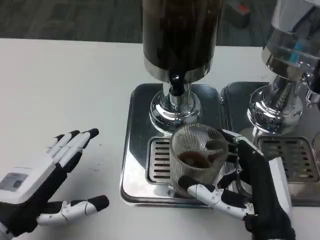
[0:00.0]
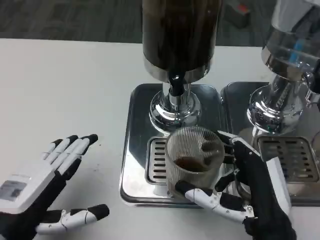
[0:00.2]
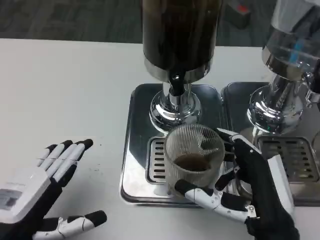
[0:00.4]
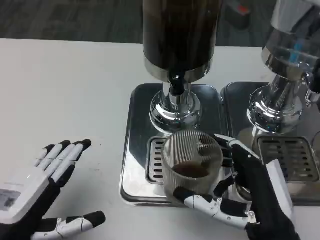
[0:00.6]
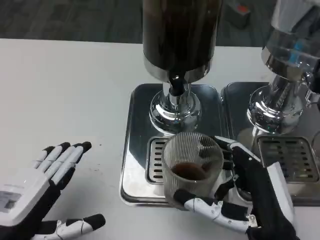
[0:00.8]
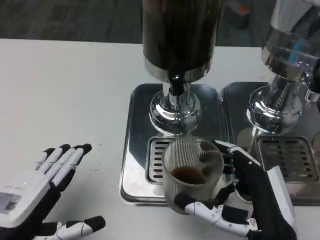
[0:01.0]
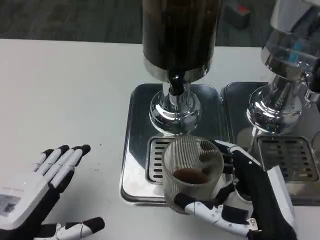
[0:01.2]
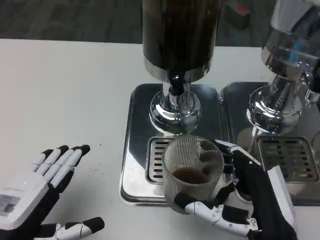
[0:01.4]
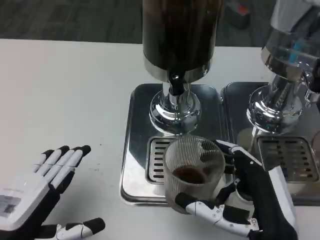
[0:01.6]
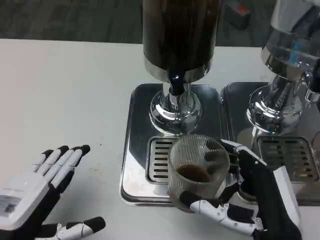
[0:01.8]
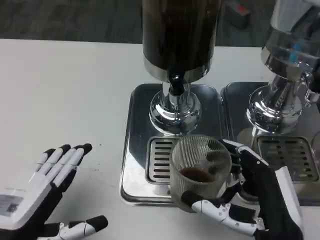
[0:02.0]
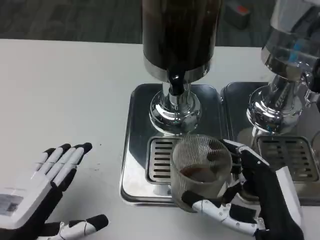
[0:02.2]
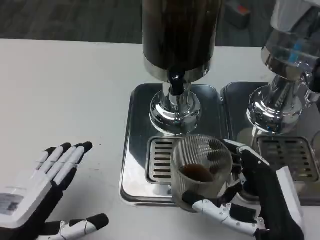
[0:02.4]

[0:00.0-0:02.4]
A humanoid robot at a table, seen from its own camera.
Task of the whole recording: Grasp the cup under the faucet to collect the drink, then remove the cup.
0:01.2 to 0:02.4: Both hands stay put.

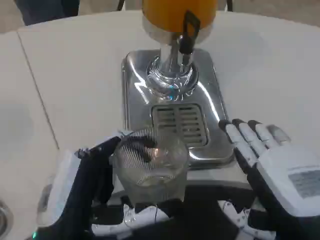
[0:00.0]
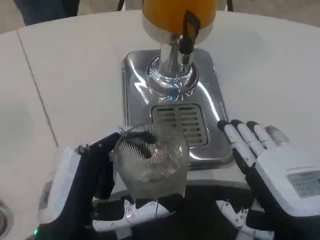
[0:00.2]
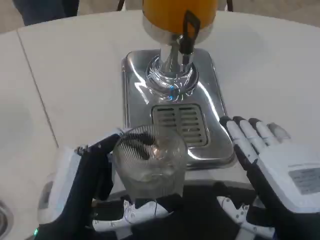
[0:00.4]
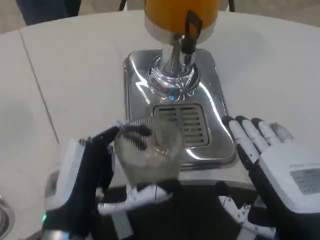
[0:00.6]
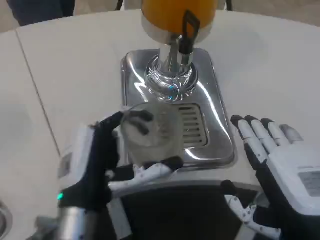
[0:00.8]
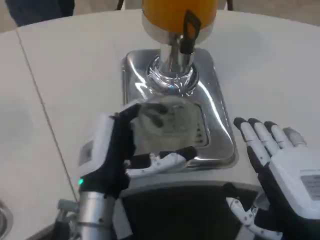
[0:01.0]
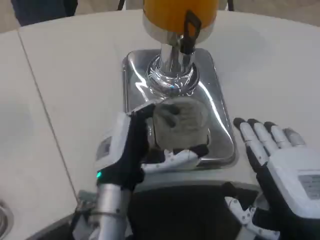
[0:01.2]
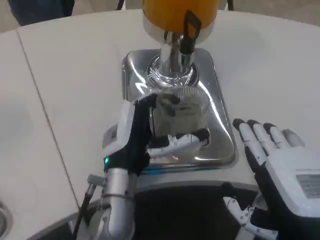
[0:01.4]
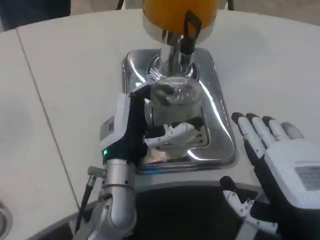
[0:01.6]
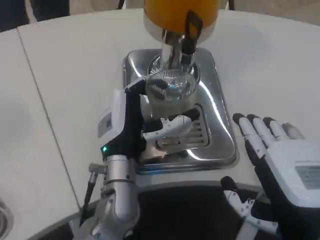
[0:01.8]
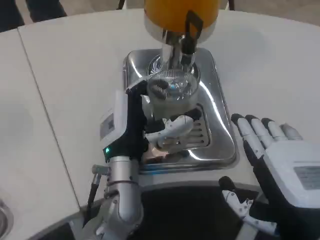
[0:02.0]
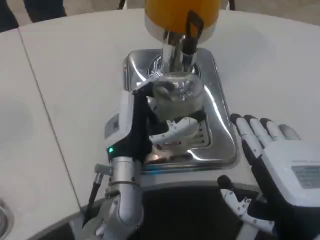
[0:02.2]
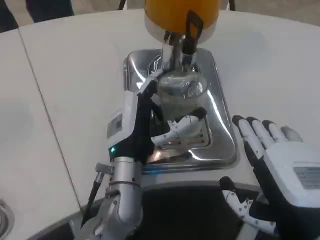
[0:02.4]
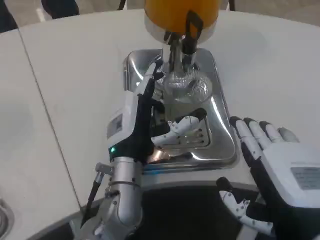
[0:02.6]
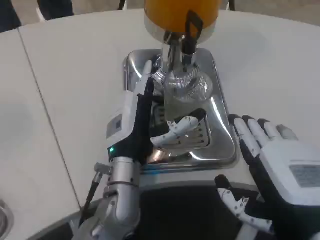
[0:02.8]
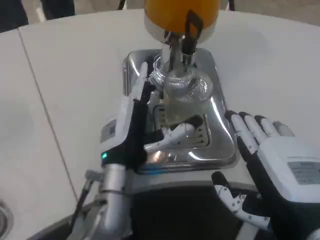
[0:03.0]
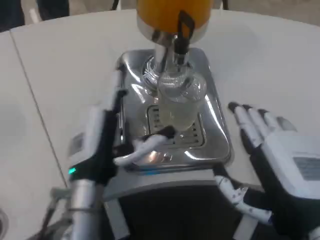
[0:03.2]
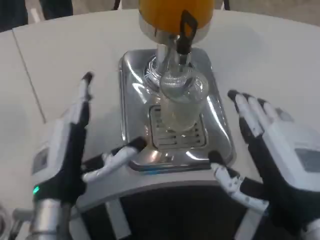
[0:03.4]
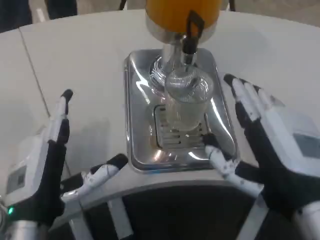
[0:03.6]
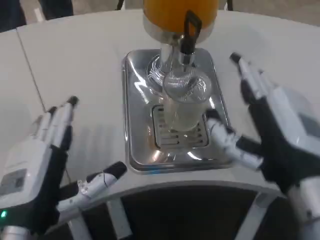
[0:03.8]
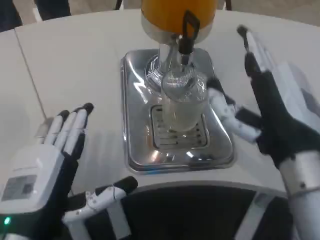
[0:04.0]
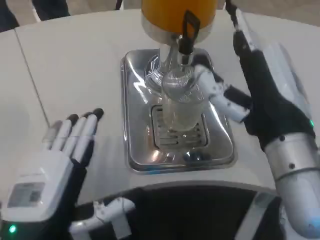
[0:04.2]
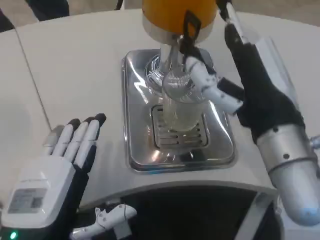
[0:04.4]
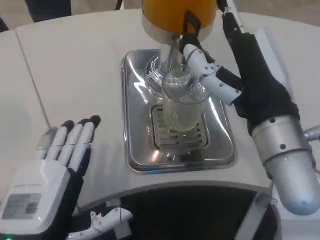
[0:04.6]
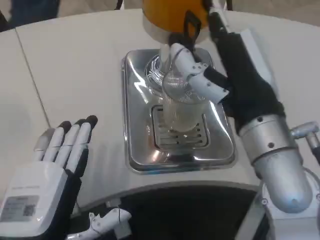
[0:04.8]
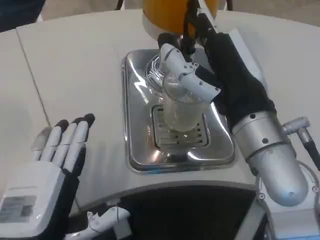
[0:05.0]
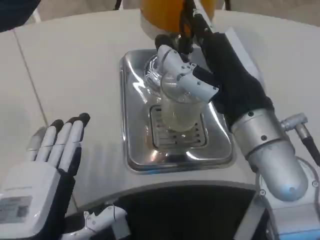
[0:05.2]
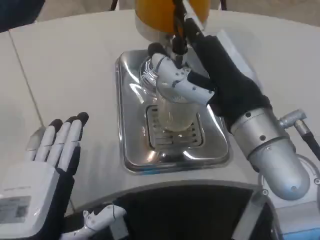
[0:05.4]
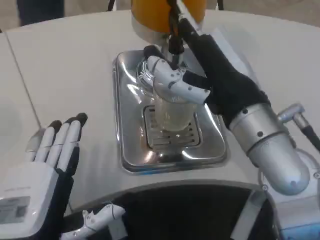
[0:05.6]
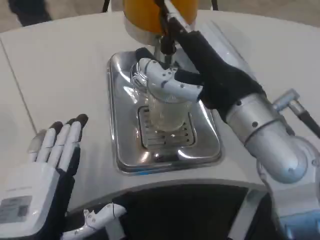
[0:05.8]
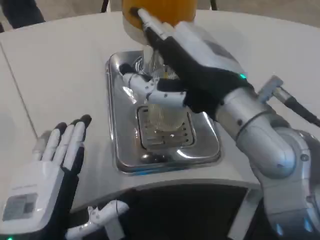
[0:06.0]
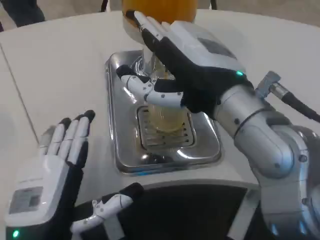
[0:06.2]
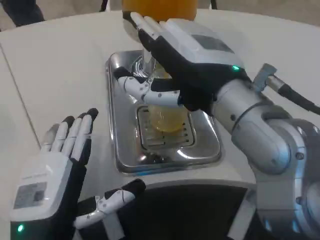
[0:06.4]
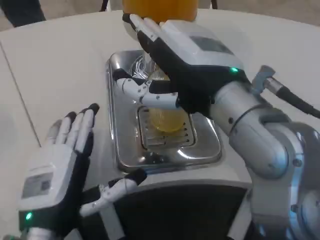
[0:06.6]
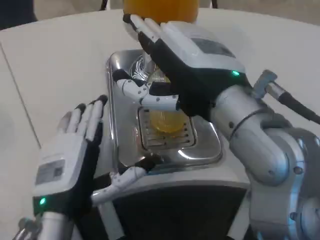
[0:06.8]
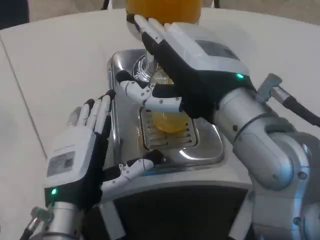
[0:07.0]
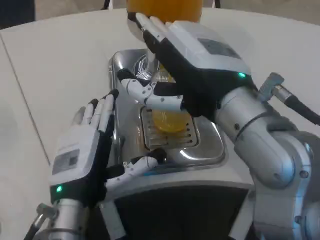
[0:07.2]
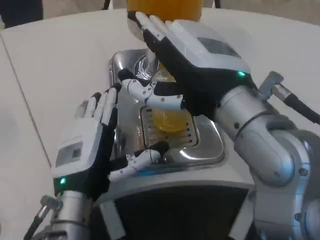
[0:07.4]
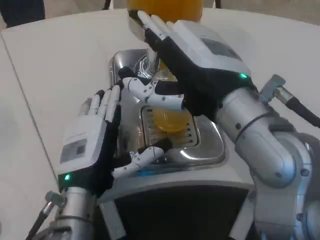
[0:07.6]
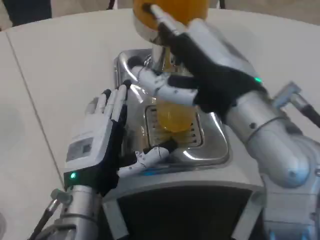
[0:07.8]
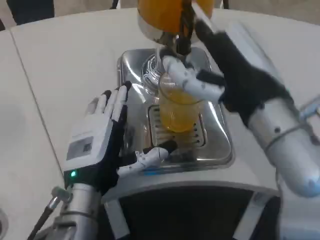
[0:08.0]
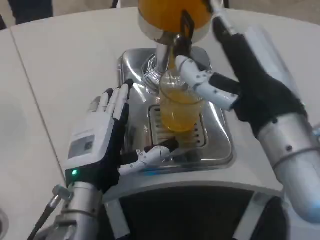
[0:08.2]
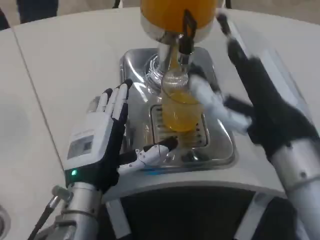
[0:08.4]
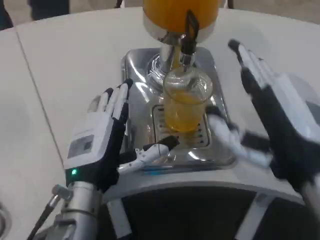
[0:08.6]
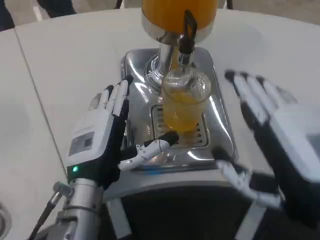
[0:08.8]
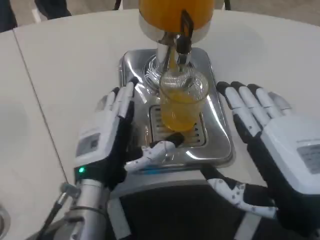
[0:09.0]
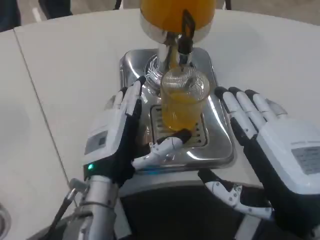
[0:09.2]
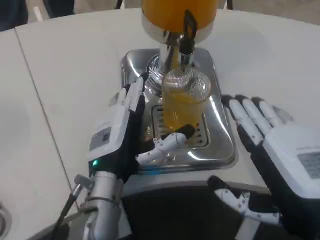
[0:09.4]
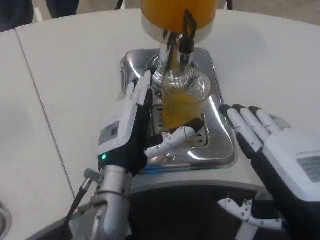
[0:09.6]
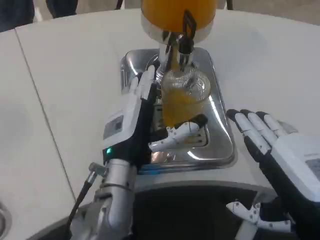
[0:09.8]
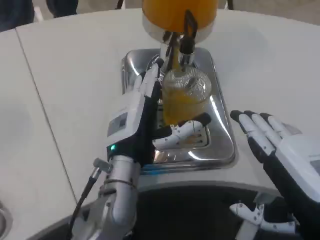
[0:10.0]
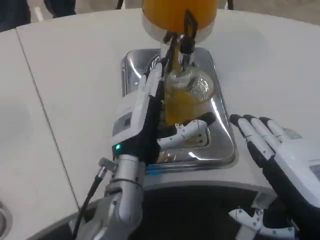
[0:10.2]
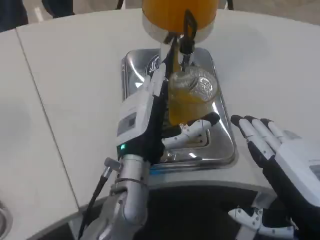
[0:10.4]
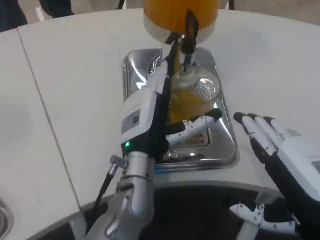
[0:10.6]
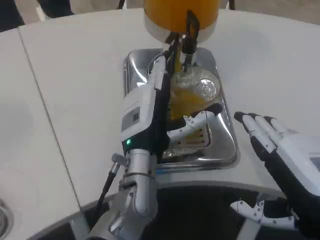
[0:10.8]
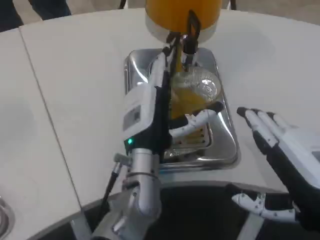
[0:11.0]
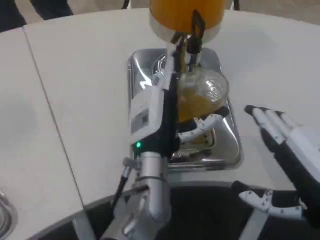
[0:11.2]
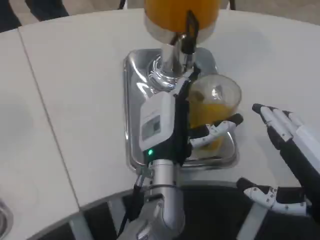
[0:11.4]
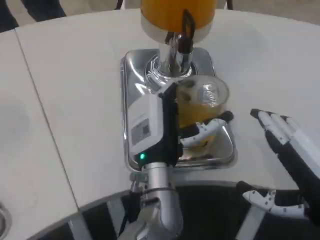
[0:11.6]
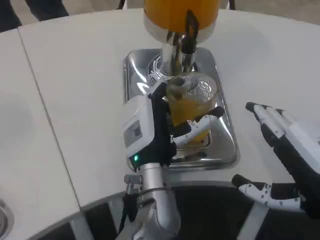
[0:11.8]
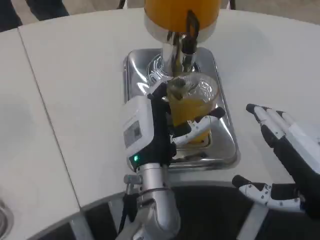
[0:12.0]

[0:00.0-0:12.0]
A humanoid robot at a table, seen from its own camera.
Task of the whole recording: Grasp the cup under the faucet to collect the drink, then remove the cup.
0:00.0 to 0:01.6: The left hand shifts roughly 15 cm forward and to the right.
0:01.6 to 0:03.0: There are only small adjustments of the hands.
0:03.0 to 0:04.4: The left hand heads backward and to the left, covering roughly 15 cm. The right hand shifts some 10 cm forward and upward.
0:04.4 to 0:06.0: The right hand shifts by some 5 cm.
0:06.0 to 0:07.6: The left hand heads forward, covering approximately 10 cm.
0:07.6 to 0:09.0: The right hand travels downward, backward and to the right by about 15 cm.
0:09.0 to 0:10.4: The left hand is displaced to the right by some 5 cm.
0:10.4 to 0:12.0: The left hand shifts by roughly 5 cm.

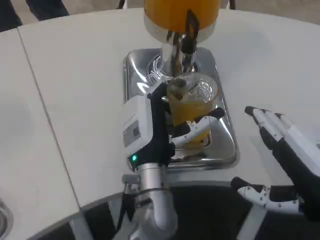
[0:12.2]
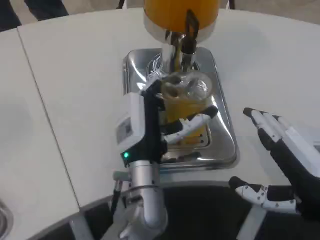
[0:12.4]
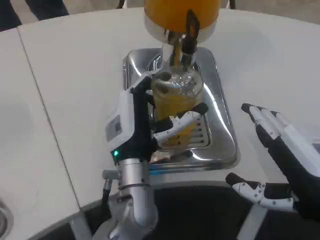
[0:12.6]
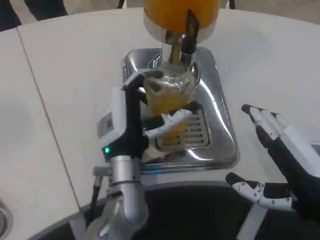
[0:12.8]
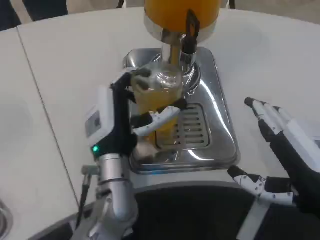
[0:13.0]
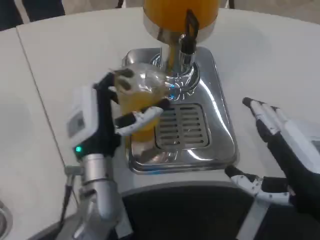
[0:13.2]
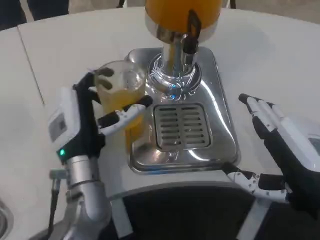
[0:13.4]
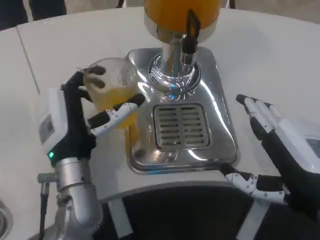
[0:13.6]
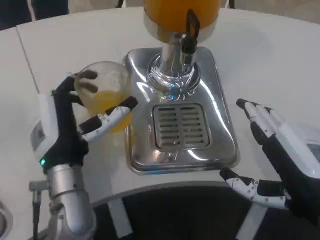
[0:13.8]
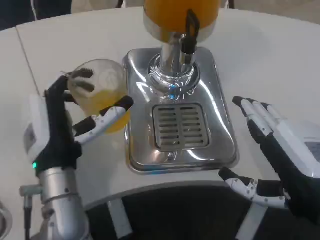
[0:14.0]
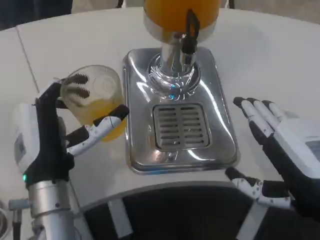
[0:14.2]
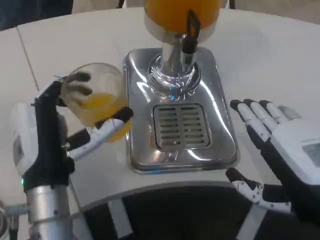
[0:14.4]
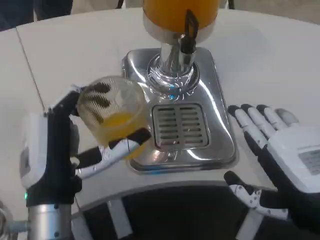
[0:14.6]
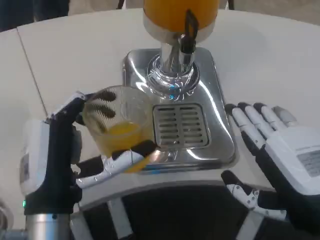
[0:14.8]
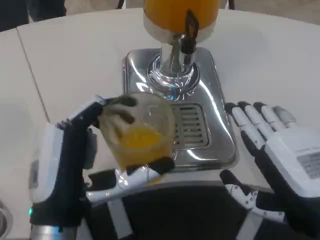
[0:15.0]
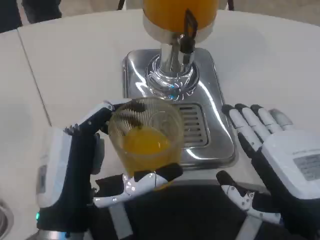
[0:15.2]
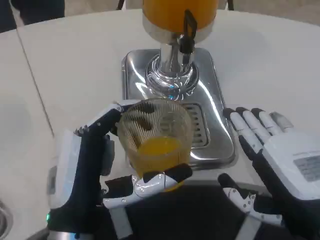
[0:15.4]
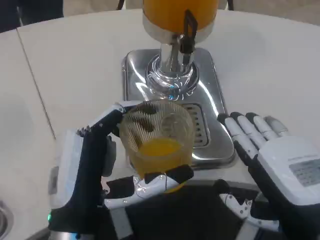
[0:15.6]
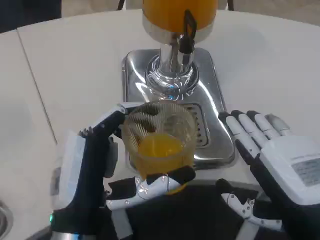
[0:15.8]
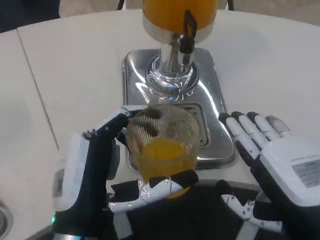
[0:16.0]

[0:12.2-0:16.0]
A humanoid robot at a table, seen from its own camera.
Task of the whole recording: Grasp the cup under the faucet to collect the drink, then remove the cup.
0:12.2 to 0:13.4: The left hand moves to the left, roughly 10 cm.
0:13.4 to 0:14.8: The left hand is displaced backward by roughly 10 cm.

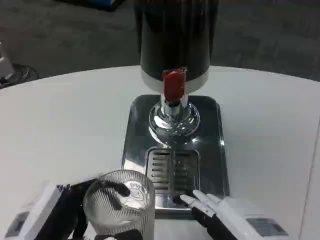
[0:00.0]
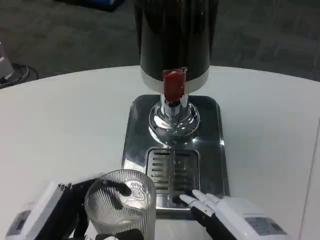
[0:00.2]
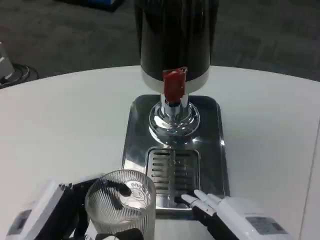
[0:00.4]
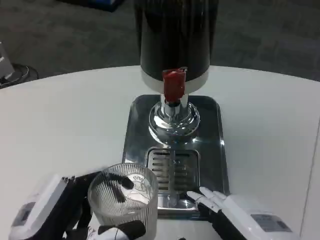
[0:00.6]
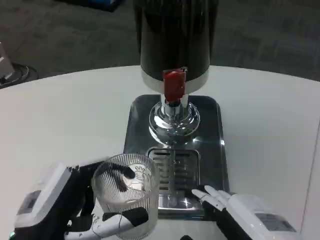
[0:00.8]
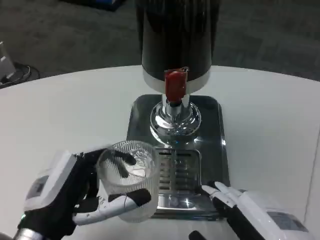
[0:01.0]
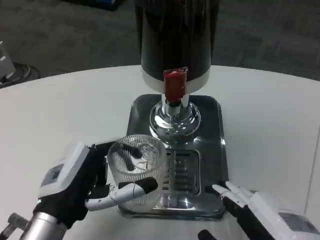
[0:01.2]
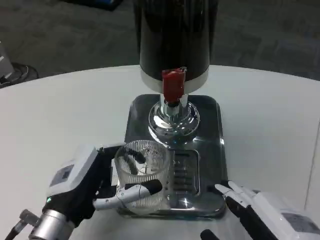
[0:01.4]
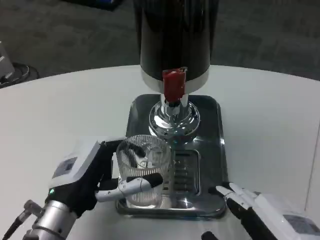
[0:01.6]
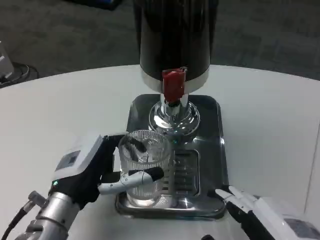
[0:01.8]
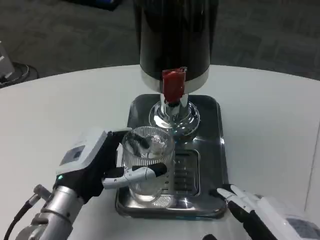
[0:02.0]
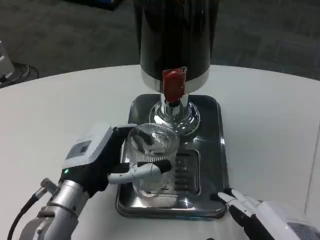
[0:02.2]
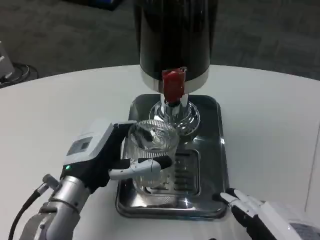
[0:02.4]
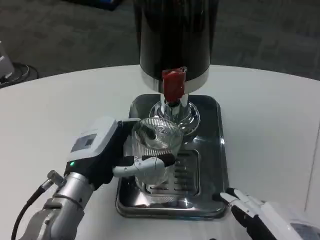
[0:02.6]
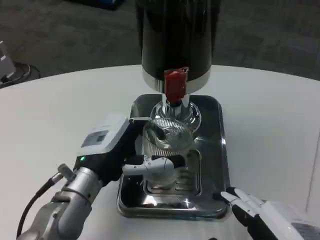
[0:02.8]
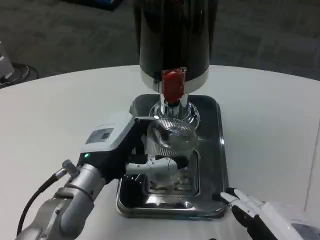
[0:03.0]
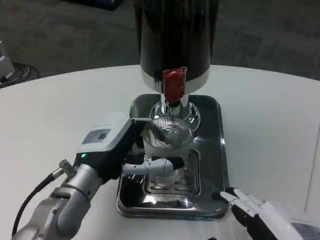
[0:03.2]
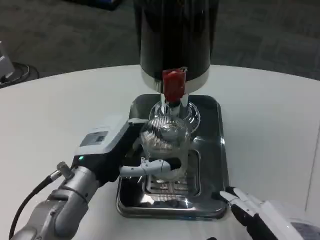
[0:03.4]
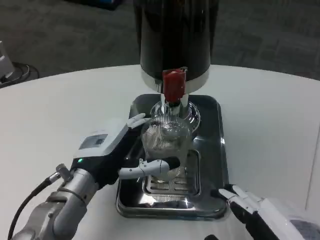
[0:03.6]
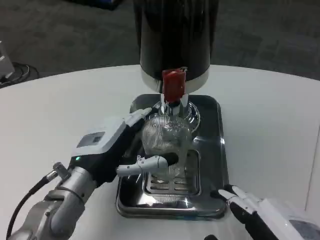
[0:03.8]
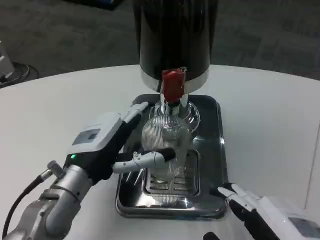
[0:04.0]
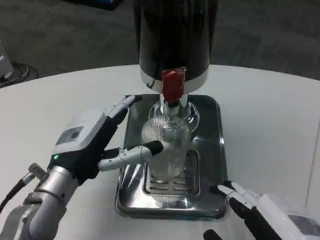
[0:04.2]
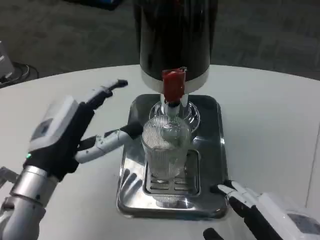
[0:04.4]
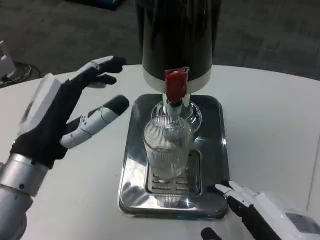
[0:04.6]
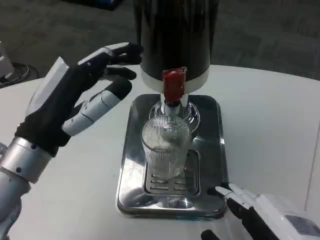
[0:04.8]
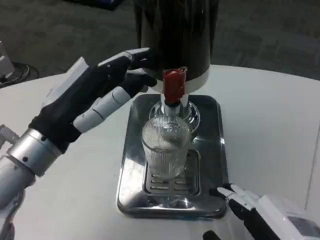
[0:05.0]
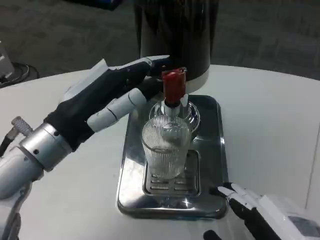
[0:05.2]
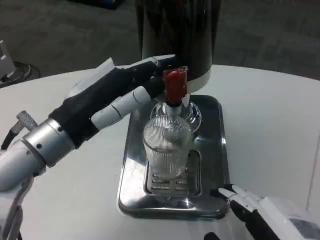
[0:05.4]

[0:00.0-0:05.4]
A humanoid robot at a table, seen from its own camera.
Task of the whole recording: Grasp the cup under the faucet to collect the drink, then remove the cup.
0:00.0 to 0:01.4: The left hand is displaced forward by about 10 cm.
0:01.4 to 0:02.8: The left hand is displaced forward by roughly 5 cm.
0:02.8 to 0:04.0: The hands make only small movements.
0:04.0 to 0:05.4: The left hand shifts about 10 cm upward.
